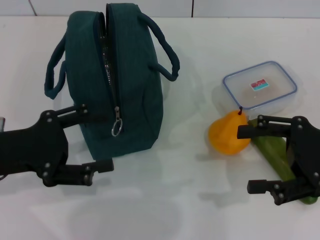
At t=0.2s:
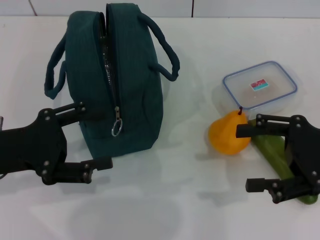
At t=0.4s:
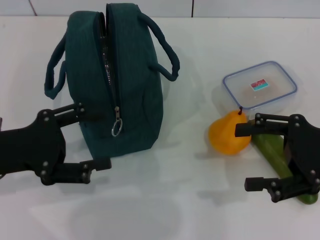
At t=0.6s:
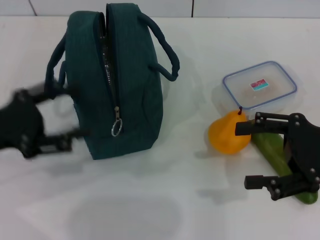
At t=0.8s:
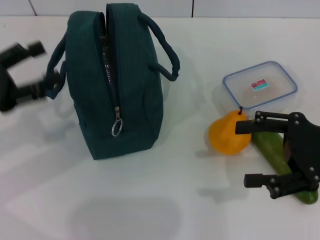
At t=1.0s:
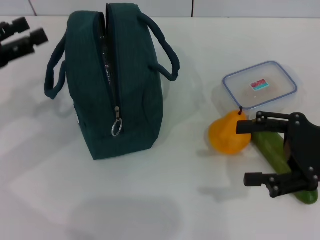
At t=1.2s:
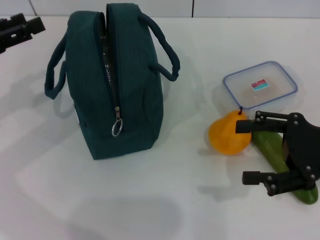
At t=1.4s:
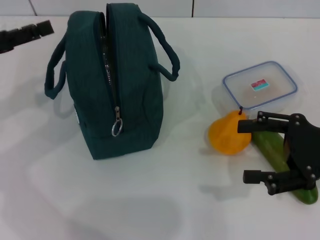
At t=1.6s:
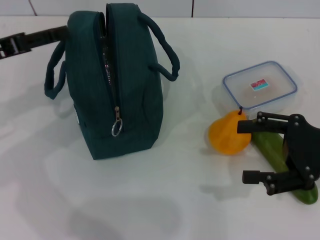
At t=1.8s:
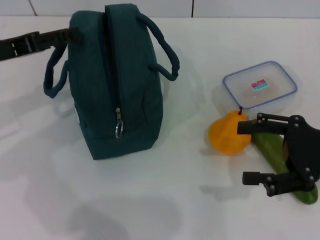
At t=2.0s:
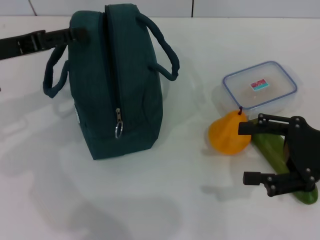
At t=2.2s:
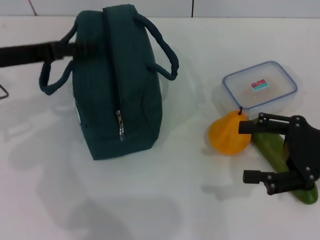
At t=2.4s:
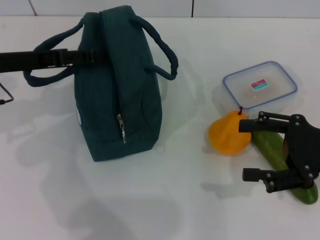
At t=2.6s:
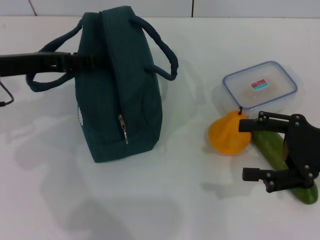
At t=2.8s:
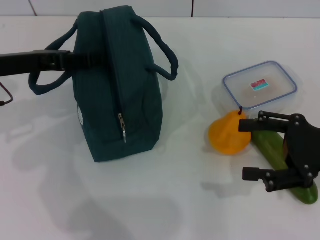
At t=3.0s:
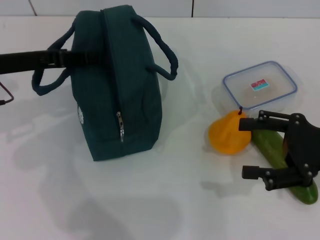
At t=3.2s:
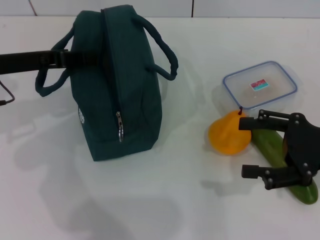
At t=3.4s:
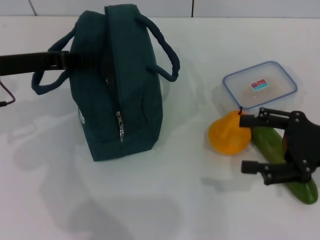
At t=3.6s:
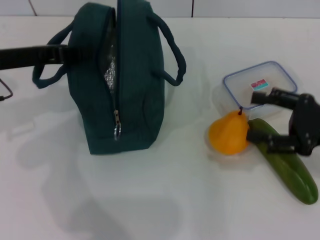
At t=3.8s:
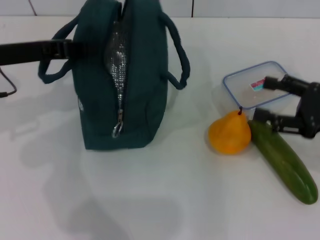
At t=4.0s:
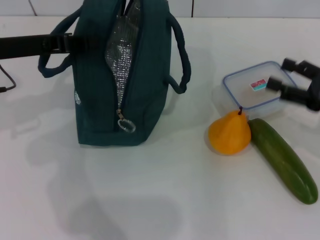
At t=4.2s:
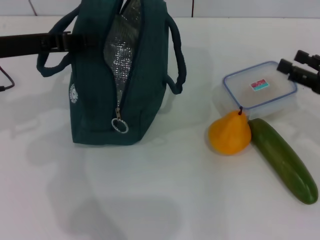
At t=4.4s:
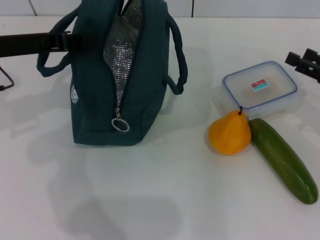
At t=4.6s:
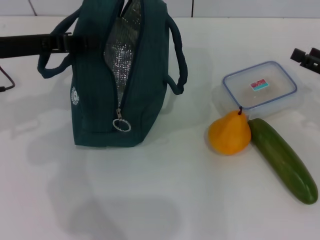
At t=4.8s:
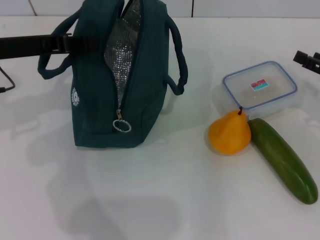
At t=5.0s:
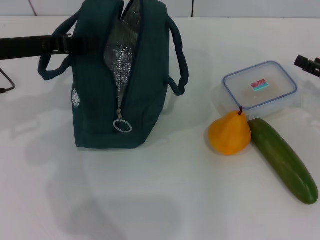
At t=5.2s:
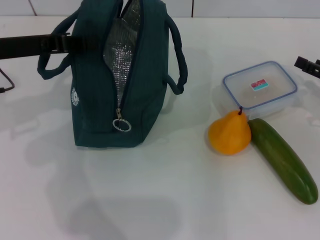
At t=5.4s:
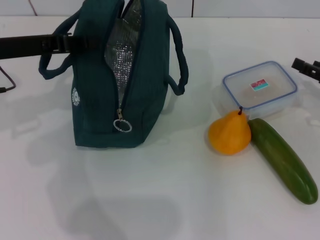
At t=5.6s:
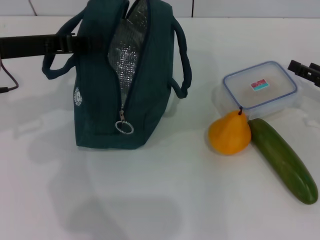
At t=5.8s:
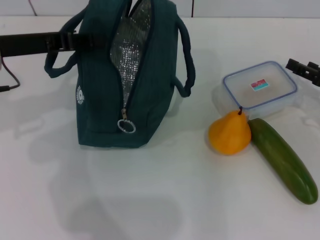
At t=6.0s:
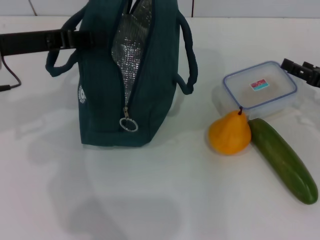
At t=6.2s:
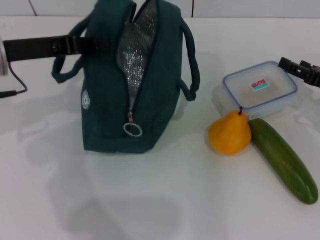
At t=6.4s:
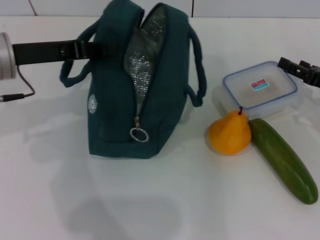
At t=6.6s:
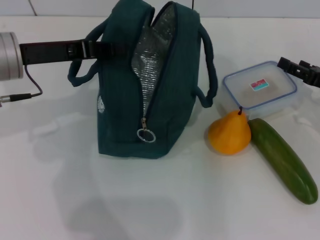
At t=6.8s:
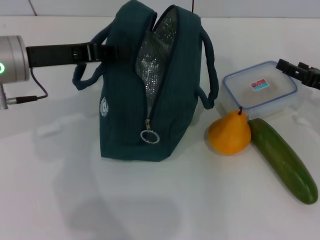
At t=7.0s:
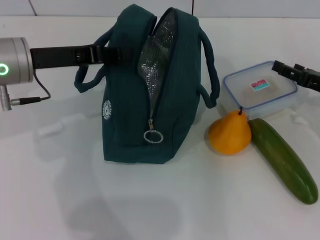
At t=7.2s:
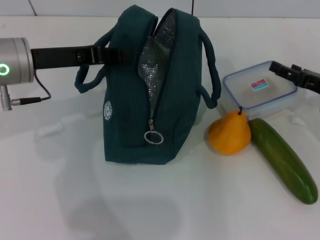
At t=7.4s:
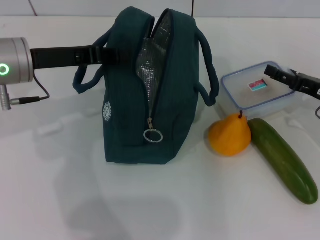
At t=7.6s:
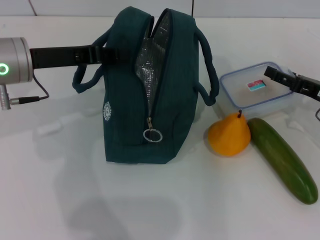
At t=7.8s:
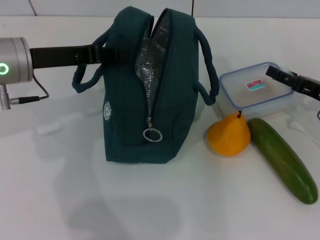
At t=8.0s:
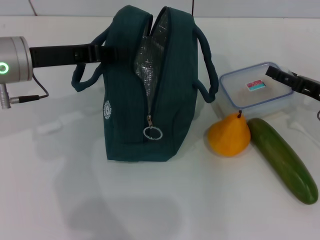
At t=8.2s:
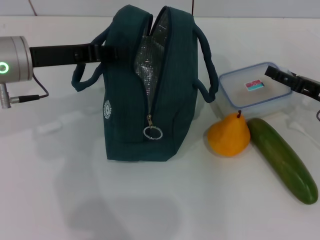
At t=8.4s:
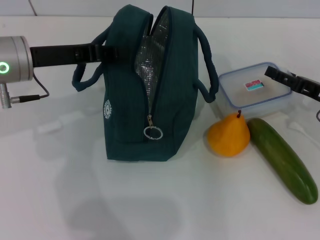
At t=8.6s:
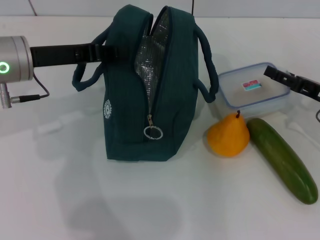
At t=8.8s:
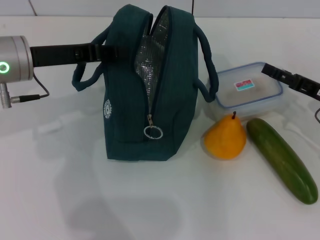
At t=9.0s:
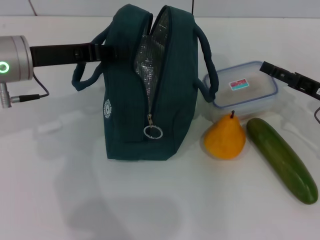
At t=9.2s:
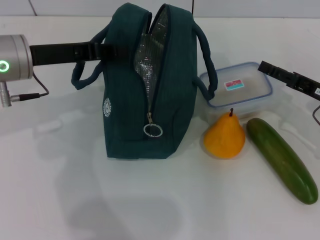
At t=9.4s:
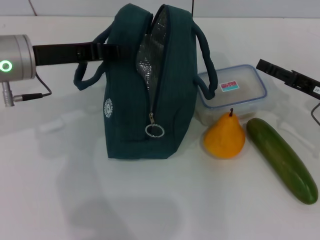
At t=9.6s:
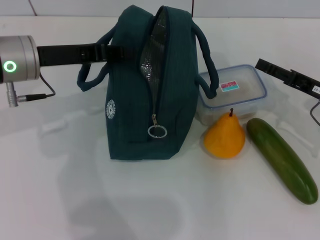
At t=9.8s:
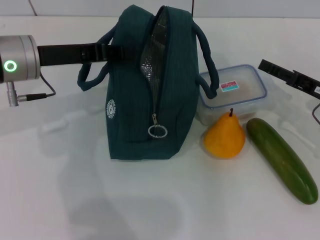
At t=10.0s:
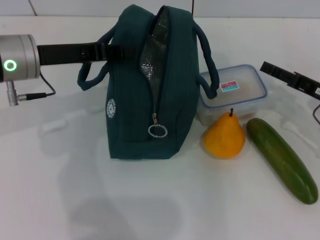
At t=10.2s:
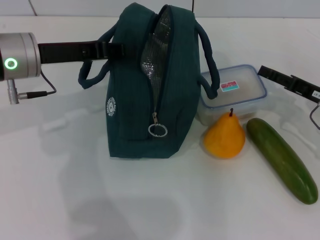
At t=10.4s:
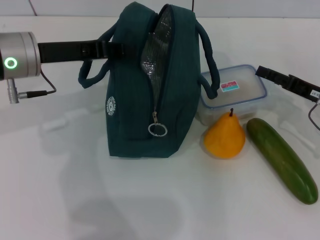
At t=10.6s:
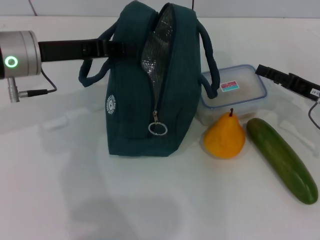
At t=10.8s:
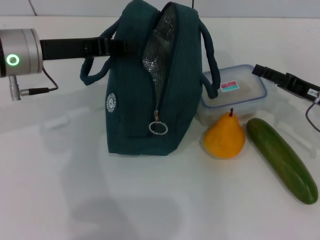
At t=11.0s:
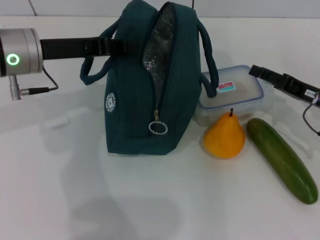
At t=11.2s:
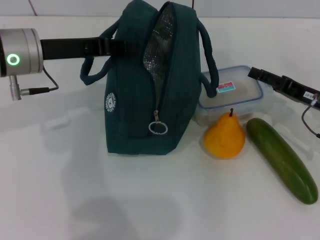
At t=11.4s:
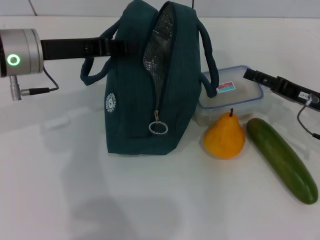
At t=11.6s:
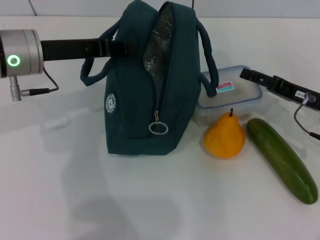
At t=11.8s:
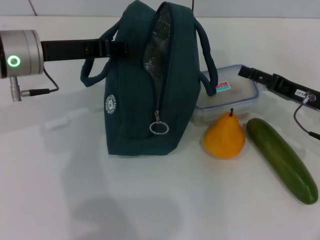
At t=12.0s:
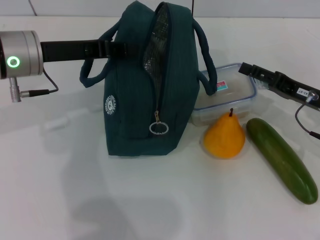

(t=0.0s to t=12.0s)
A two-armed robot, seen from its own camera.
Step, t=0.0s - t=2.6s: Hold the lunch bag with your left hand.
t=0.0s - t=1.6s: The left gripper heads forward, covering roughly 10 cm.
t=1.6s - t=3.0s: The left gripper closes its fingers.
t=3.0s - t=4.4s: The left gripper closes its fingers; the right gripper is displaced forward and to the right by roughly 10 cm.
t=4.4s - t=6.0s: The grippers move only a little.
t=7.6s - t=12.0s: The grippers make only small movements.

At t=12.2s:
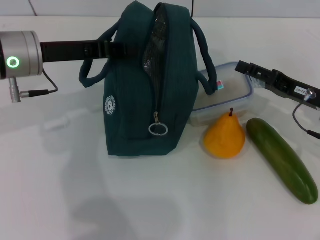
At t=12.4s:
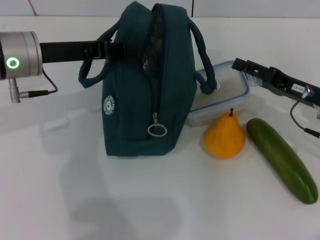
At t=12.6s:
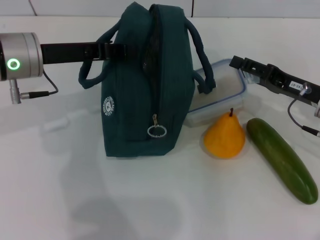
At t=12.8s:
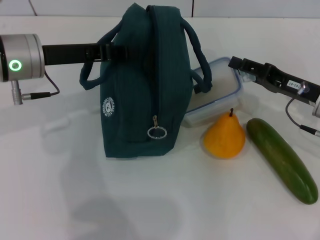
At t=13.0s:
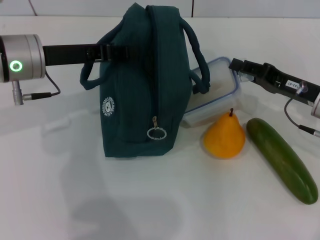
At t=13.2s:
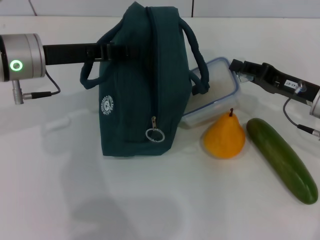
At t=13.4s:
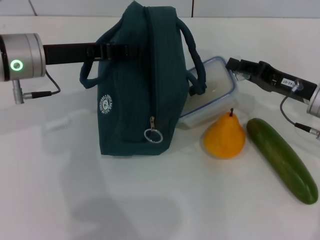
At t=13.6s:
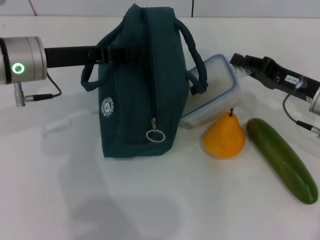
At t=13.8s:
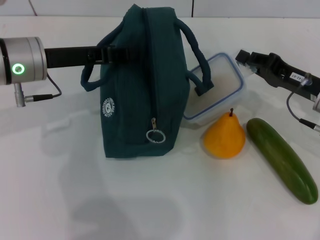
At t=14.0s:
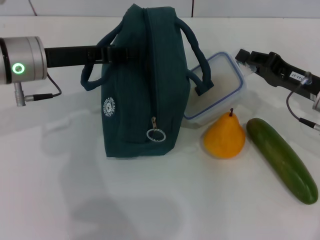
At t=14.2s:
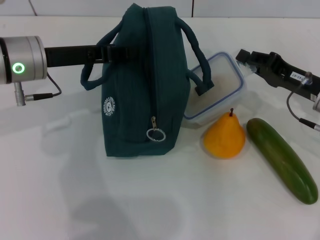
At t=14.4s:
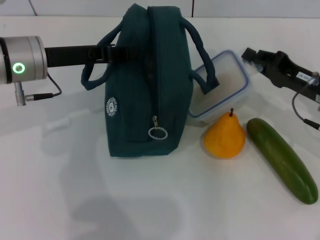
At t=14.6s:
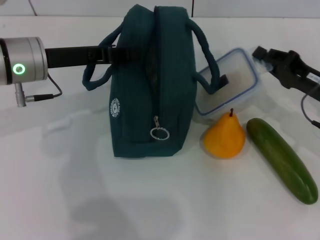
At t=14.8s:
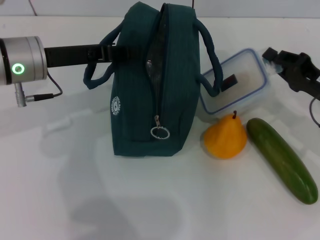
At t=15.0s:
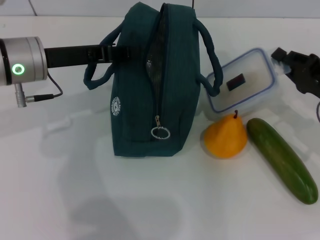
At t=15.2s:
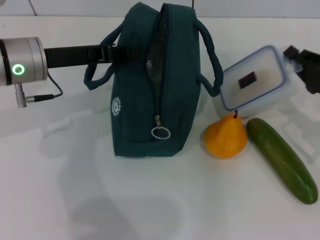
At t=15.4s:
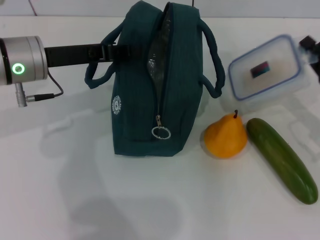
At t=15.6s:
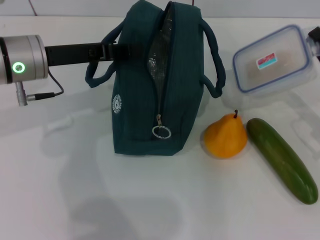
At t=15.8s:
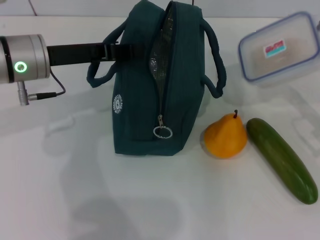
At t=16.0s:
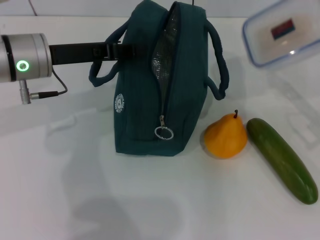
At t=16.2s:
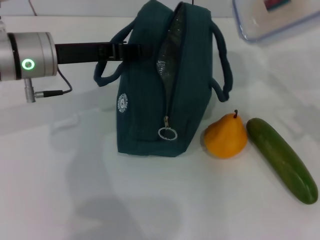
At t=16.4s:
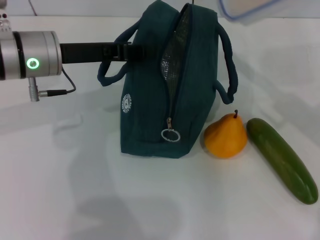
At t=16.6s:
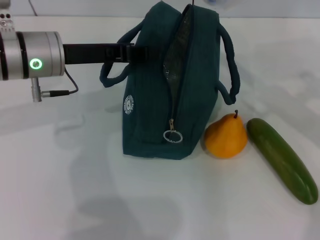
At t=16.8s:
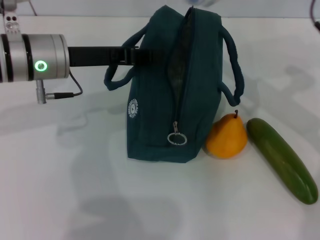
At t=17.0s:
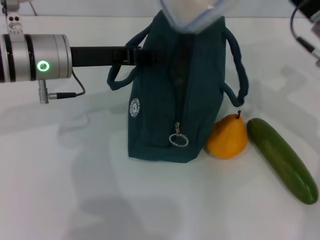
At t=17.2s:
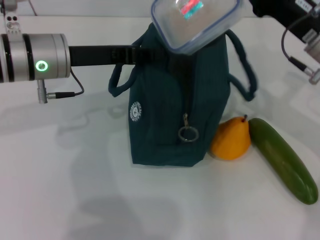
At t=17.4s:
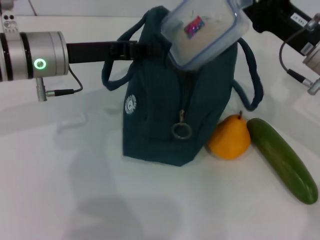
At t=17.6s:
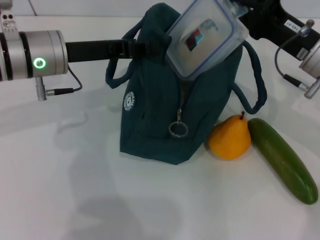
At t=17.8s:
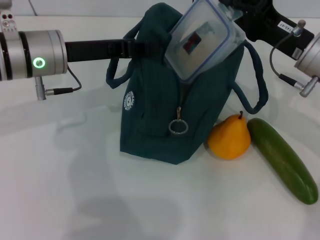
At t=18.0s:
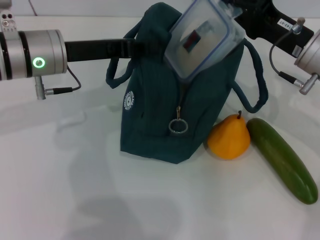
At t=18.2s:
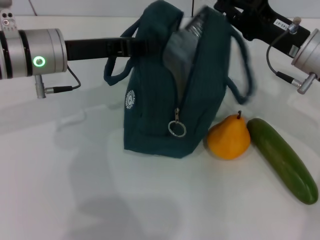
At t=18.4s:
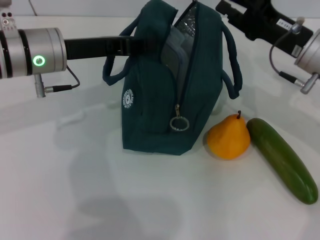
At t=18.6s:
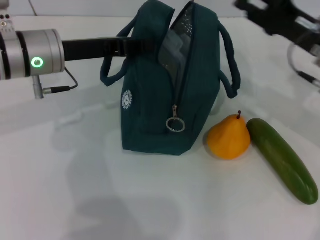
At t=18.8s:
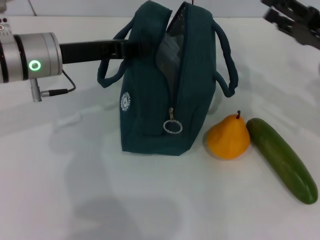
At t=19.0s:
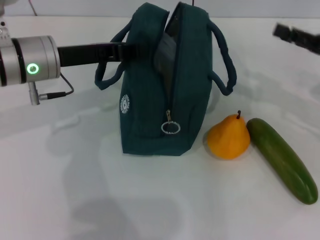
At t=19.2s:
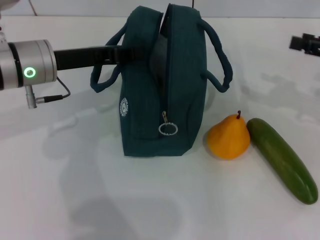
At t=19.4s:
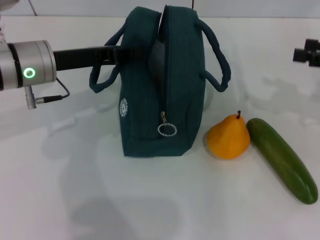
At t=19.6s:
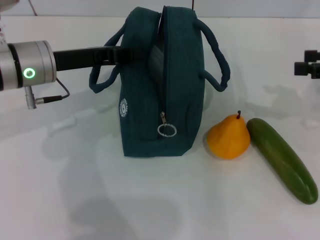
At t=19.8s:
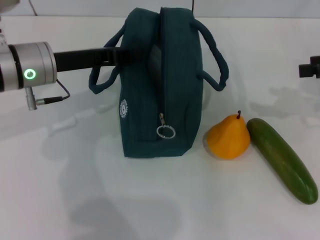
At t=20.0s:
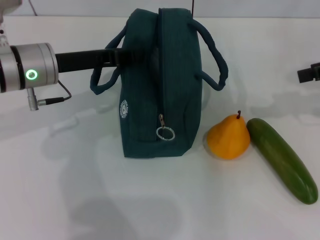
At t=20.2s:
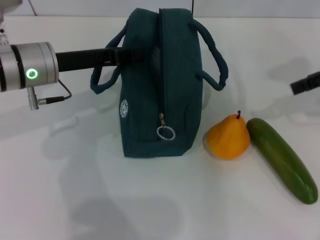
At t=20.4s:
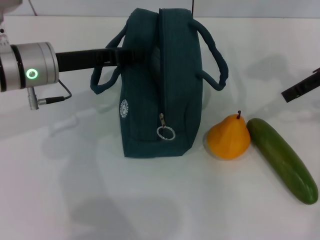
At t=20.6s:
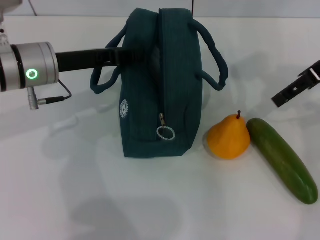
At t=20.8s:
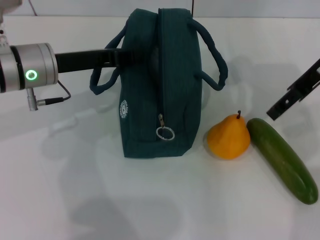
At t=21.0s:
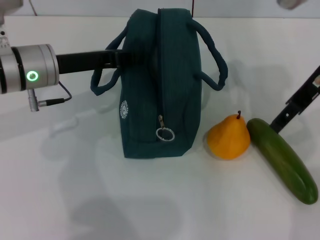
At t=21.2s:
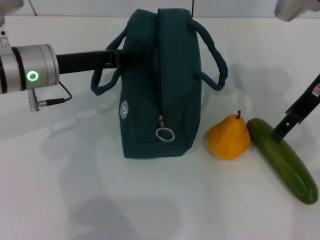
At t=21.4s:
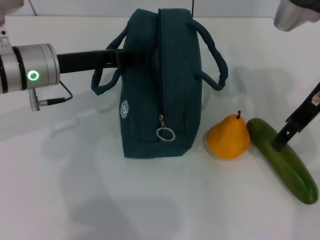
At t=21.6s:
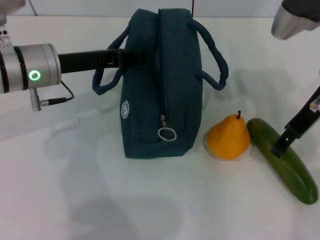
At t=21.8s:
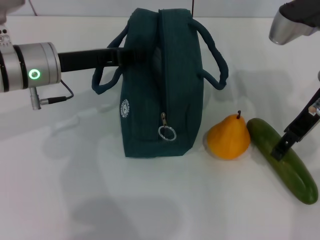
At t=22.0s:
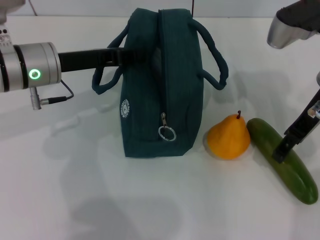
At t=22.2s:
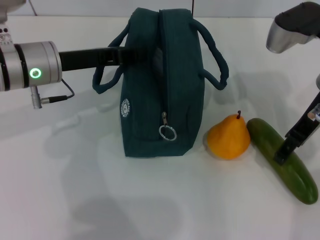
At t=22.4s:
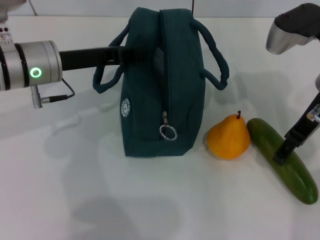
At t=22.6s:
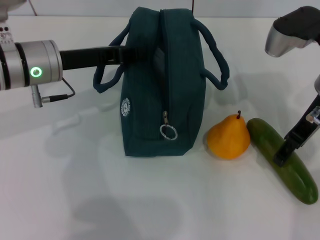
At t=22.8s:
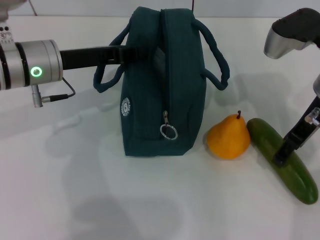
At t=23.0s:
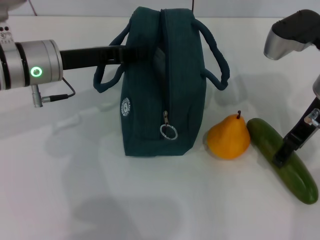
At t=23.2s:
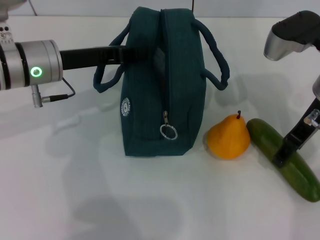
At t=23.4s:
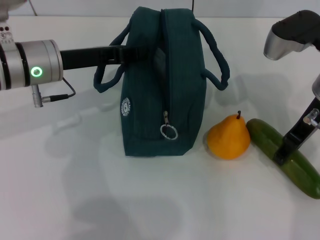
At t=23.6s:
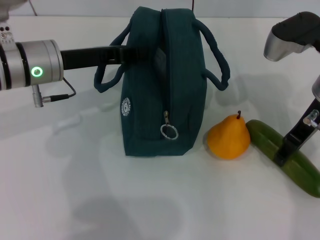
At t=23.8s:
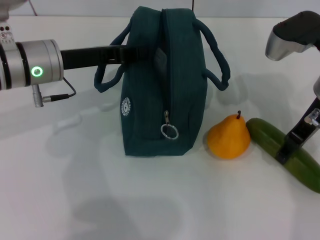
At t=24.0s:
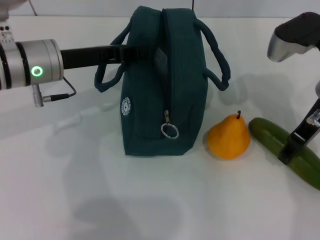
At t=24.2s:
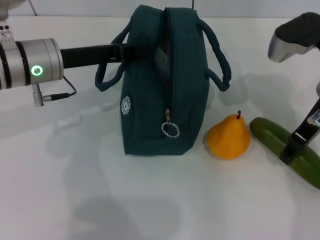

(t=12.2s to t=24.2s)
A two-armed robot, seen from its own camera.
Step, t=13.4s - t=18.2s: Place the lunch box into the lunch bag with your right hand.
Step, t=18.6s - t=23.8s: Pick up the cucumber with your right hand.
t=12.2s - t=13.8s: The right gripper closes.
t=13.8s - t=15.2s: The right gripper changes place by about 5 cm.
t=15.2s - t=16.6s: The right gripper goes about 15 cm upward and to the left.
t=16.6s - t=18.2s: The right gripper moves approximately 5 cm.
t=18.2s - t=19.8s: The right gripper shifts roughly 15 cm to the right and upward, and opens its fingers.
t=19.8s - t=21.2s: The right gripper is displaced to the left by some 15 cm.
t=21.2s - t=24.2s: The grippers move only a little.
